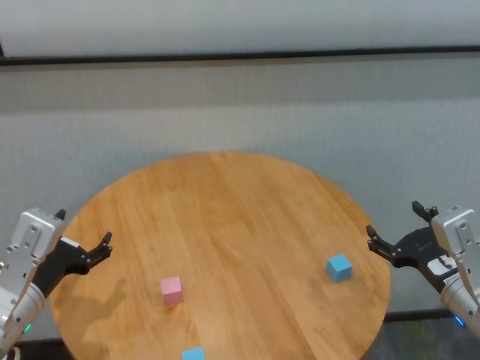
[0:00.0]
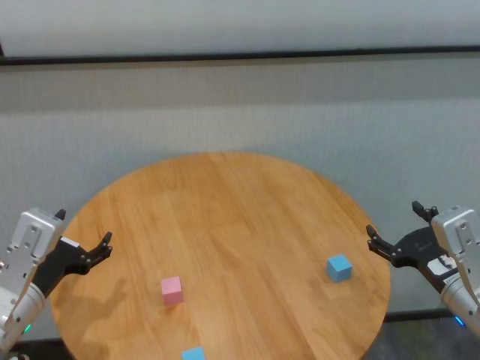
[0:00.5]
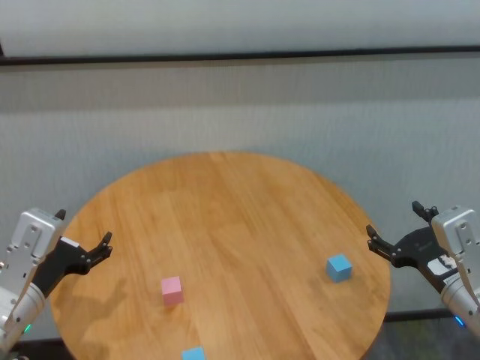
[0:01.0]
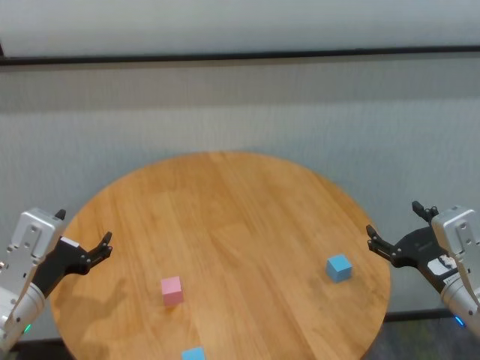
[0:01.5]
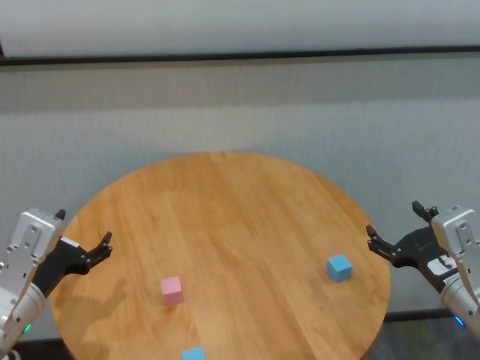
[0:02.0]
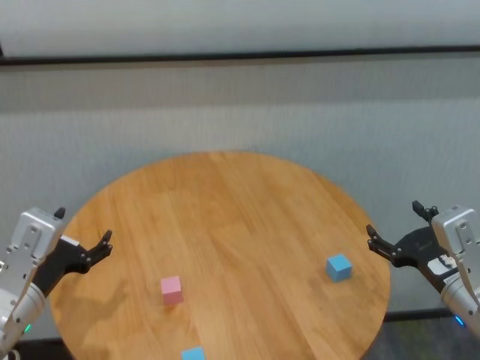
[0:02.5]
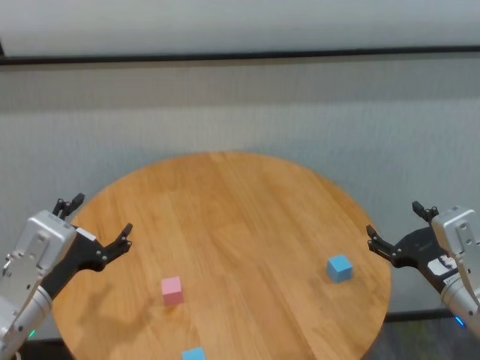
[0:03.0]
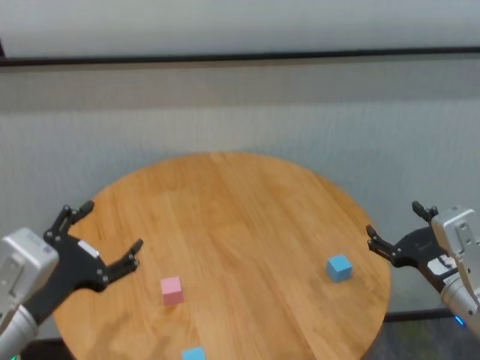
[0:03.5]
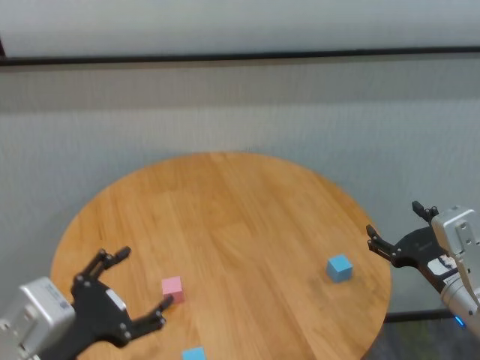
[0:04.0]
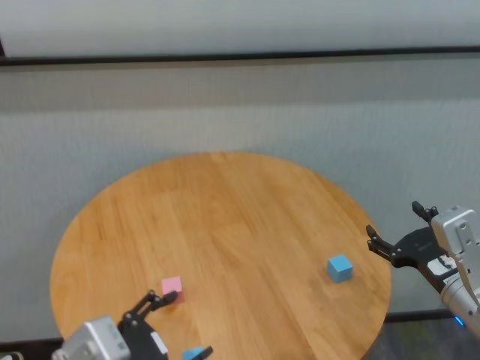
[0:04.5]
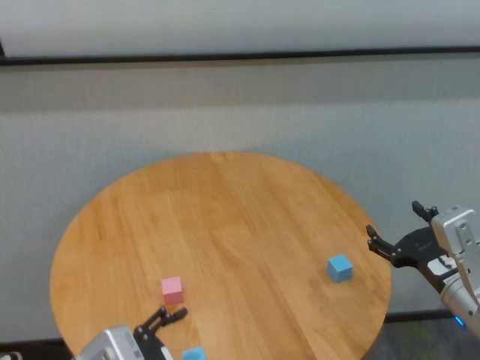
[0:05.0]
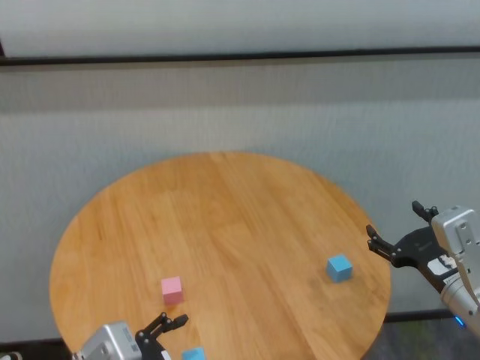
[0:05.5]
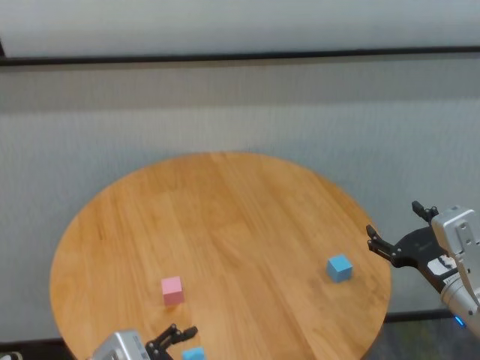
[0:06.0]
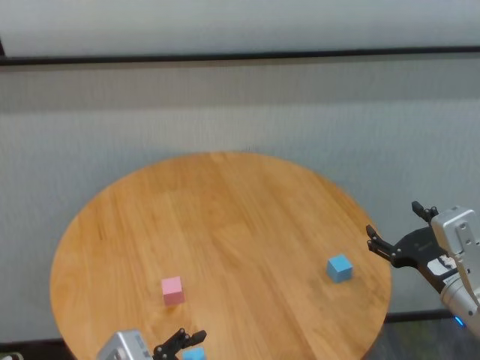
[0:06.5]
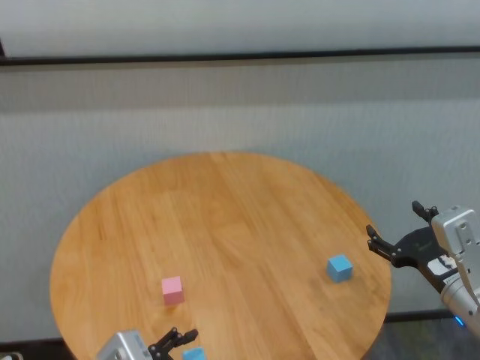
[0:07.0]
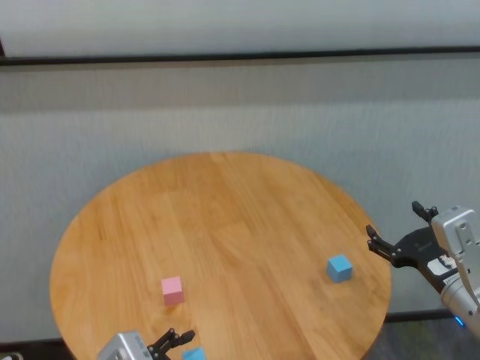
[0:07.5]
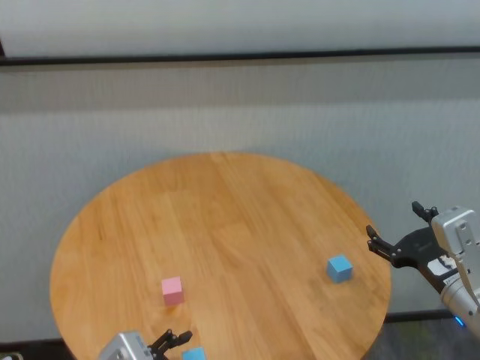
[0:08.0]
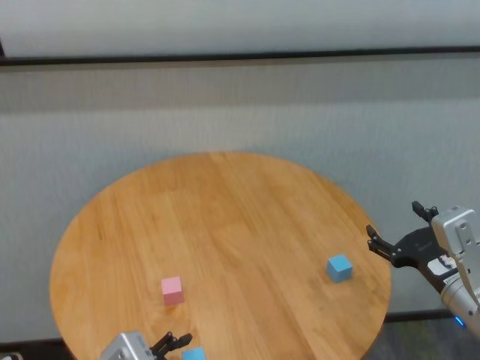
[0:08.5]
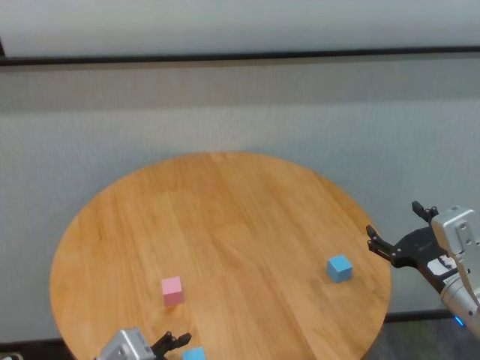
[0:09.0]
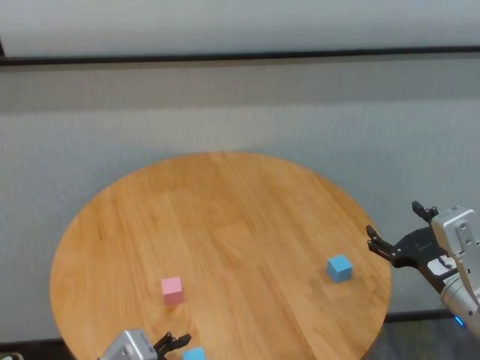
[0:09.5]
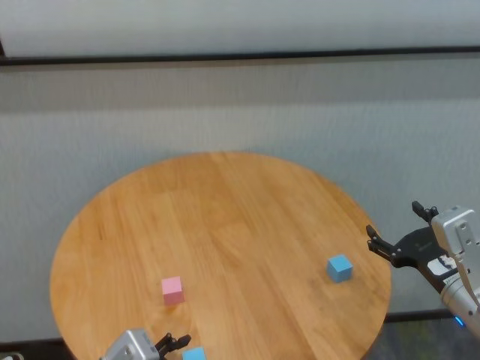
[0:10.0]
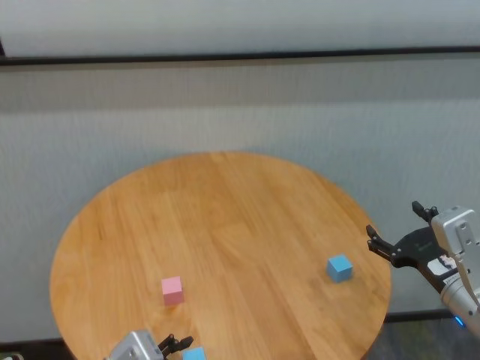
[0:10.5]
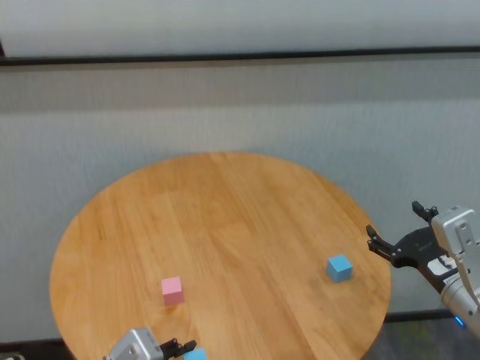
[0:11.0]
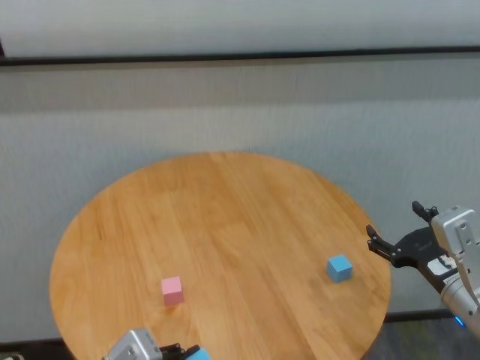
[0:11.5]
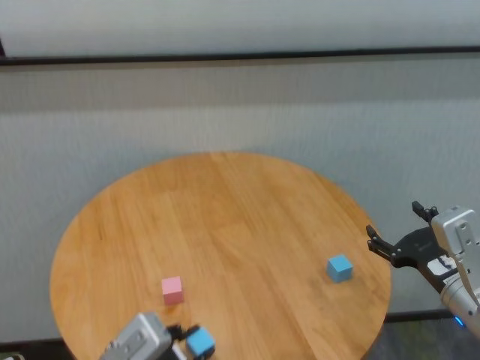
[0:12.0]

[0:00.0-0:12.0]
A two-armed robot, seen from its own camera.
Task of the whole recording: stack building blocks on the table.
Step, 0:00.0 to 0:11.0: Grasp the blue building block with left gripper.

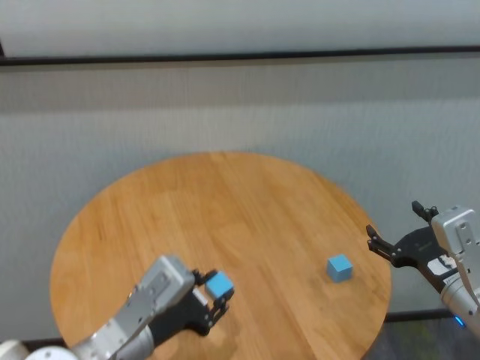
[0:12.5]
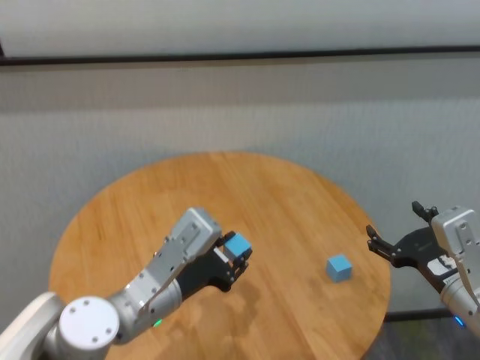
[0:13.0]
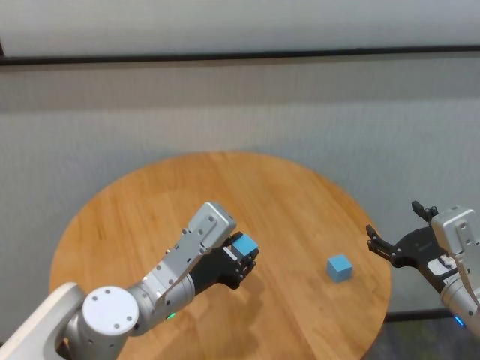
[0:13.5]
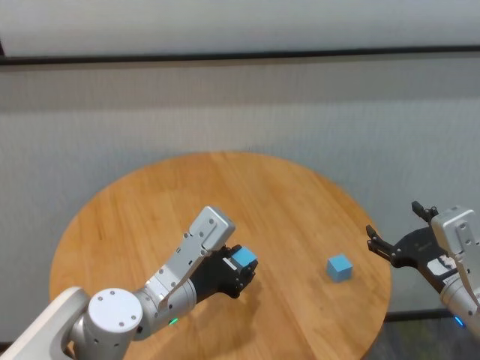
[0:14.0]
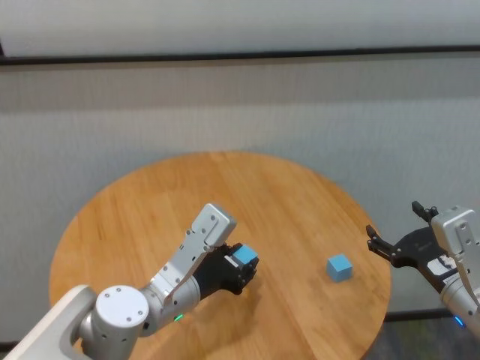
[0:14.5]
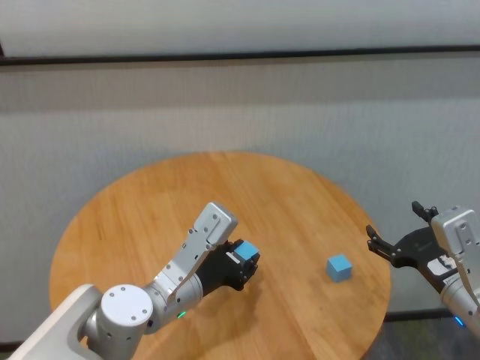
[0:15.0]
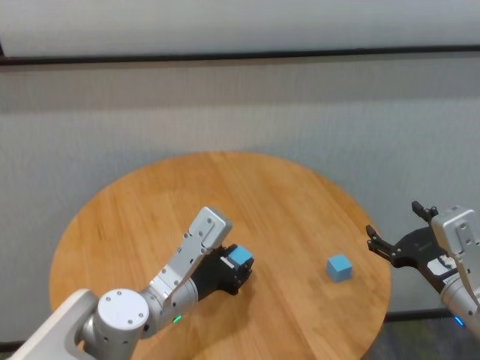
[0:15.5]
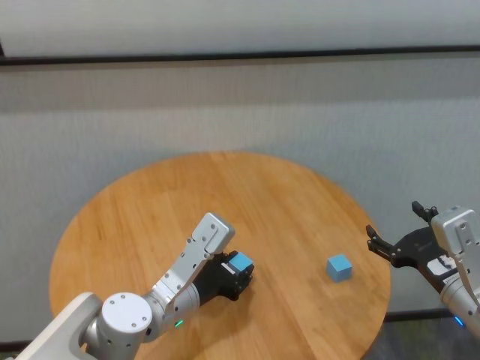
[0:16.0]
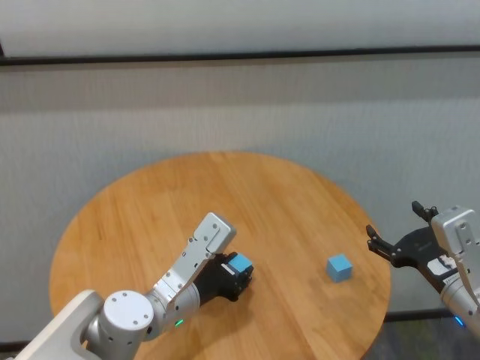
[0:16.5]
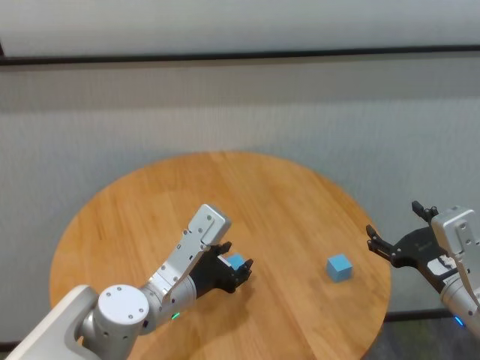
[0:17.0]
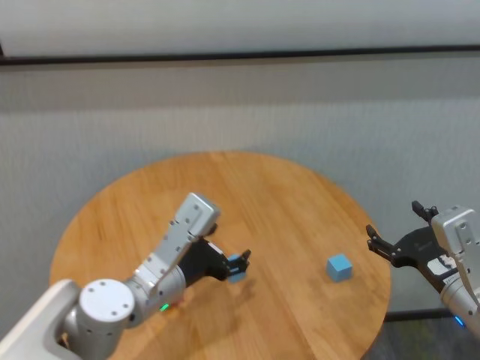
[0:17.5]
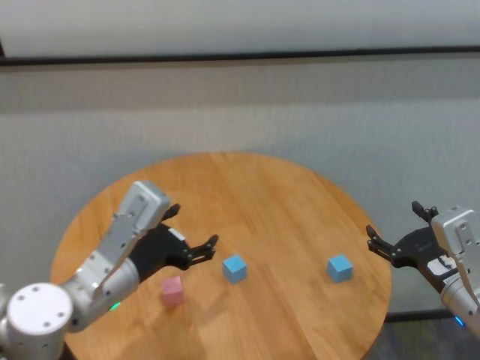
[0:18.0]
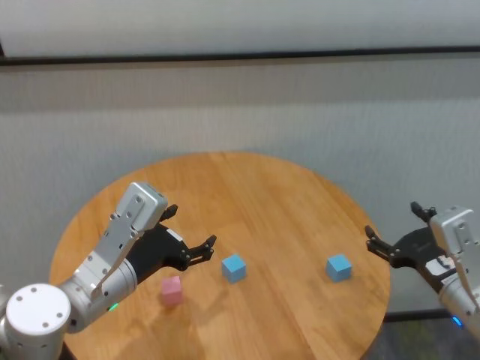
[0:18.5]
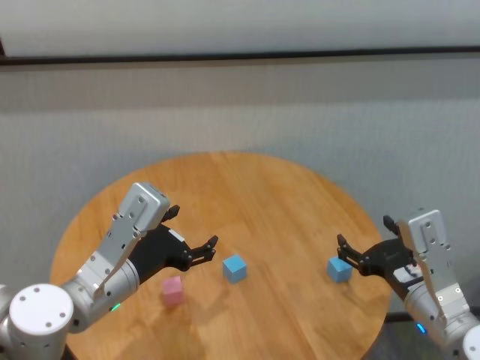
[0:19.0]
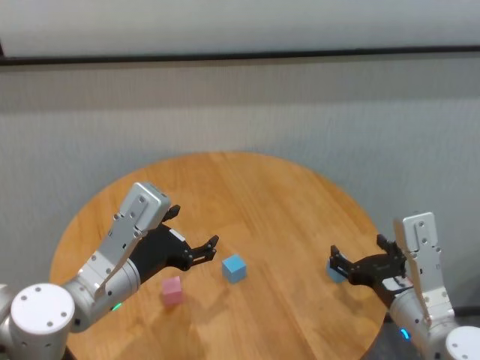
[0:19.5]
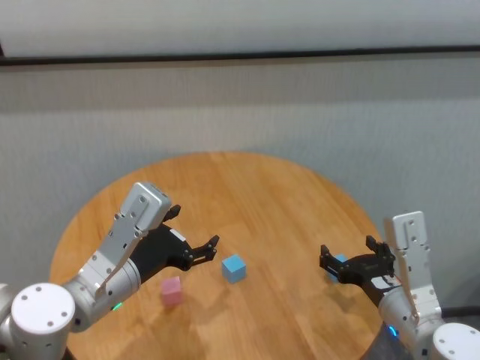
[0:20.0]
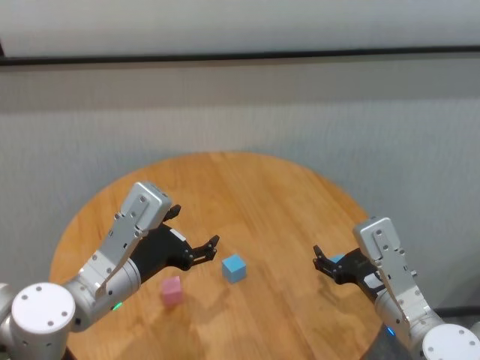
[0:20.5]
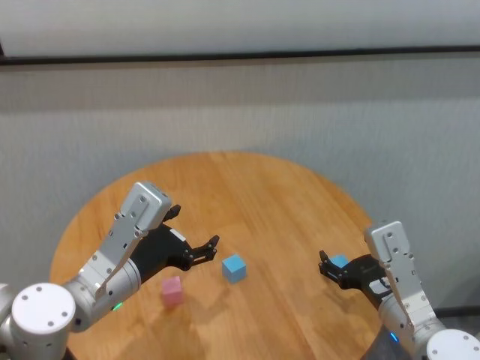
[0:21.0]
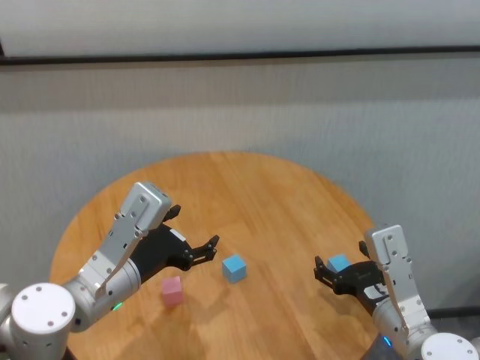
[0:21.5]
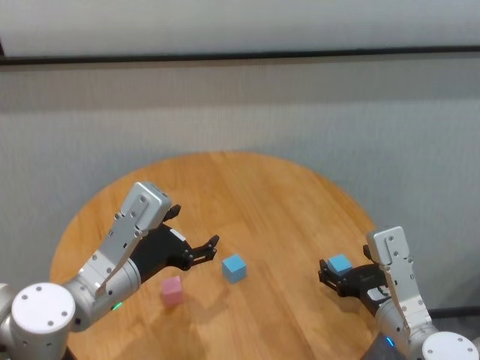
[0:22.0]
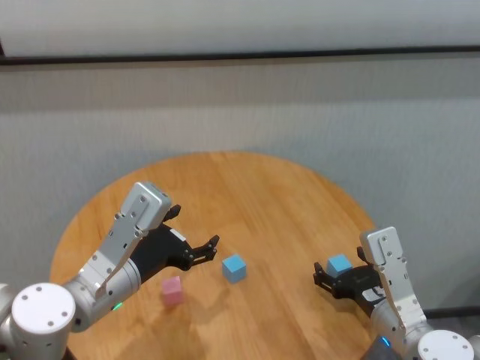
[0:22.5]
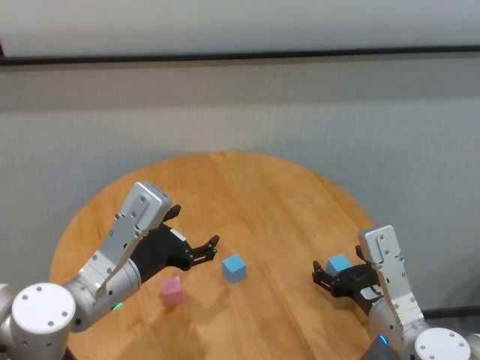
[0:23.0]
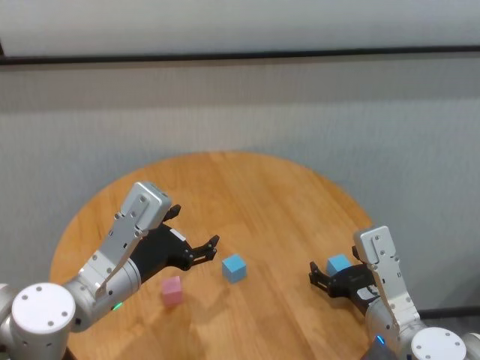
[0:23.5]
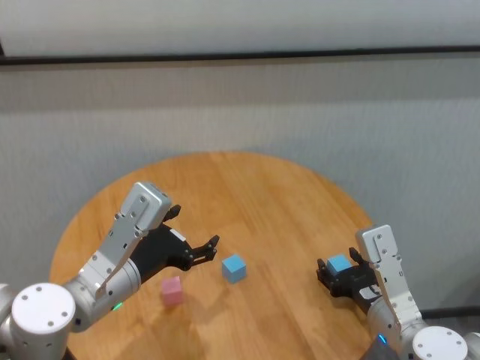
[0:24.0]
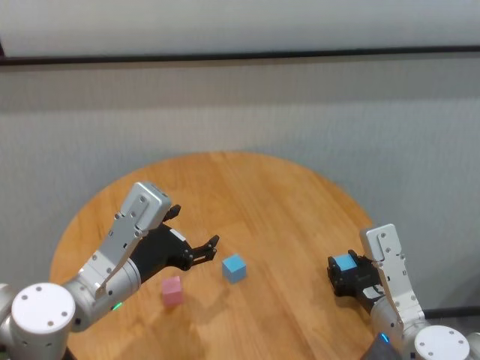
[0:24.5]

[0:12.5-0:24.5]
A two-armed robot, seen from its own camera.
Task of the whole recording: stack building blocks on the table.
Step, 0:12.5 to 0:17.0: Place the blue building block in the center of table with left gripper.
Step, 0:17.5 to 0:24.5: Grasp the blue building block with right gripper.

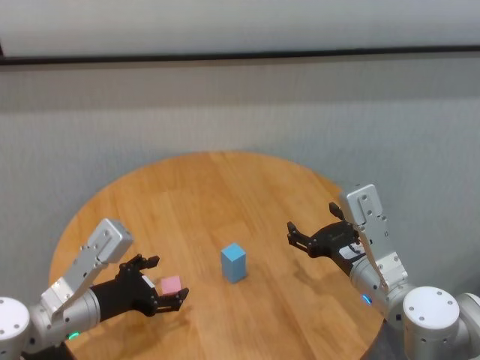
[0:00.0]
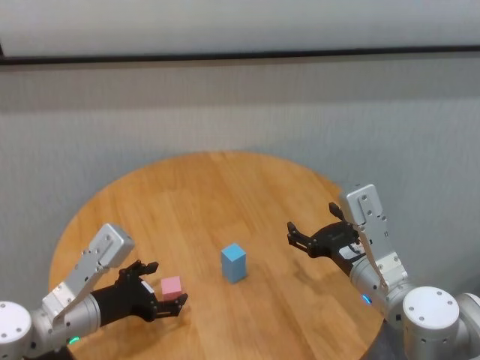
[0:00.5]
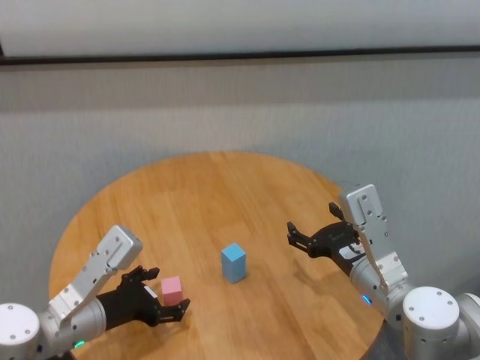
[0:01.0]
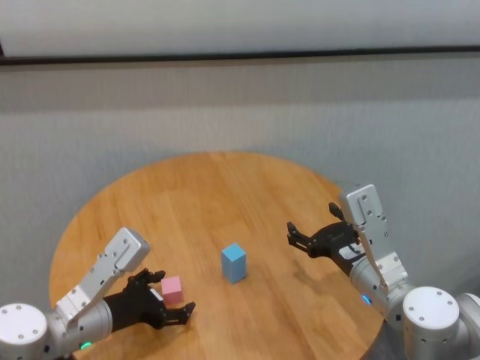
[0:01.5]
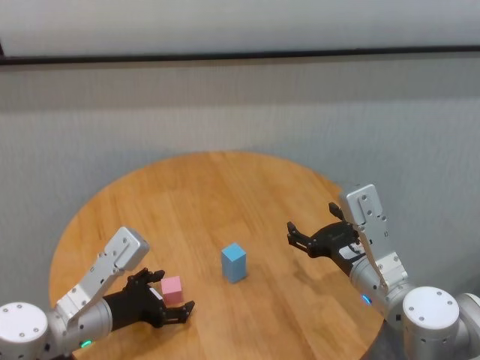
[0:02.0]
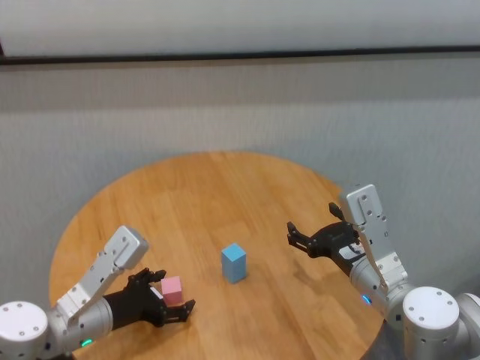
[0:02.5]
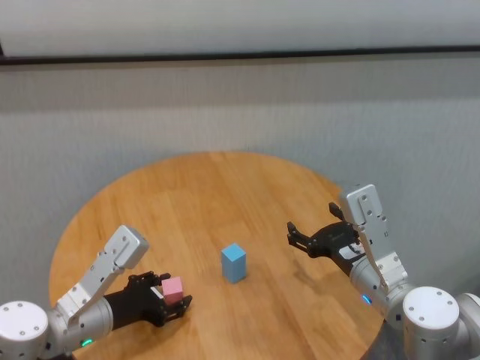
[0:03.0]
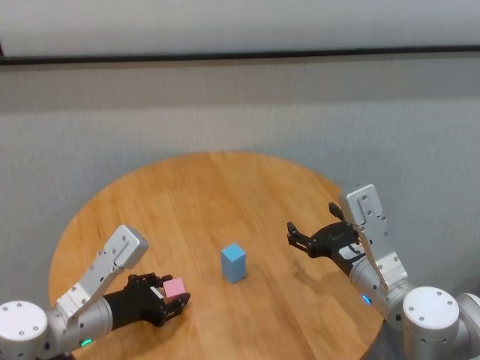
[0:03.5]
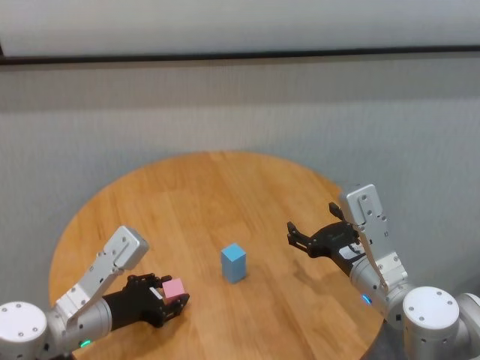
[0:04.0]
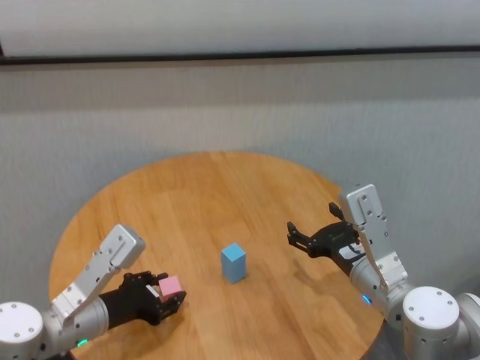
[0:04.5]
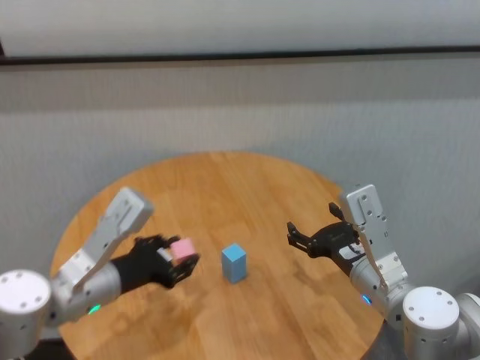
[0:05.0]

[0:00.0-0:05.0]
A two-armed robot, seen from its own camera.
Task of the whole recording: stack building blocks on the table.
Step, 0:00.0 to 0:03.0: Grasp the pink building block with left gripper.
